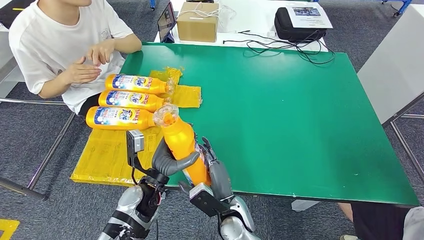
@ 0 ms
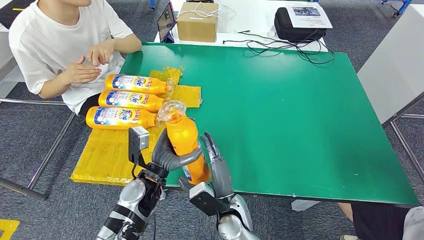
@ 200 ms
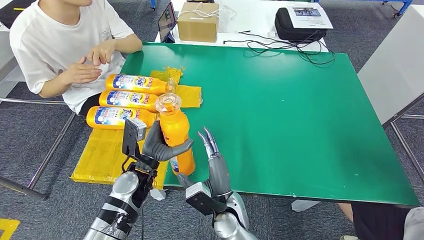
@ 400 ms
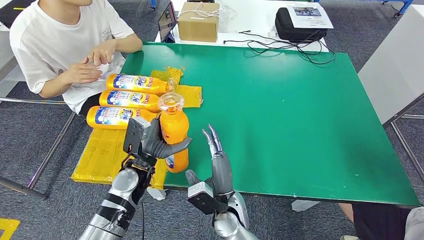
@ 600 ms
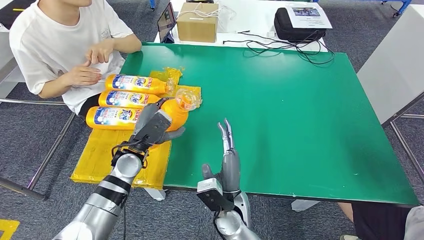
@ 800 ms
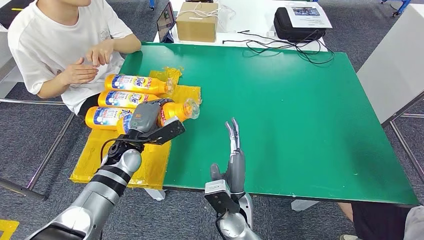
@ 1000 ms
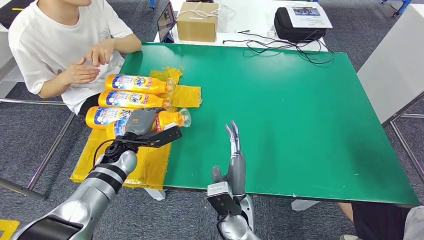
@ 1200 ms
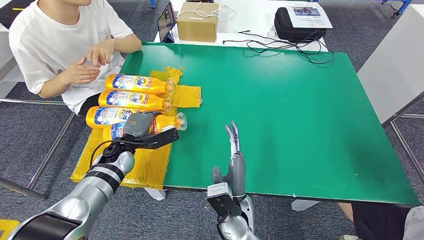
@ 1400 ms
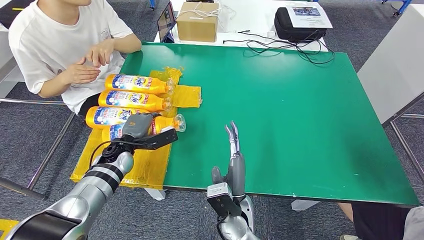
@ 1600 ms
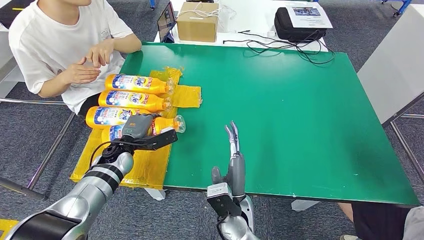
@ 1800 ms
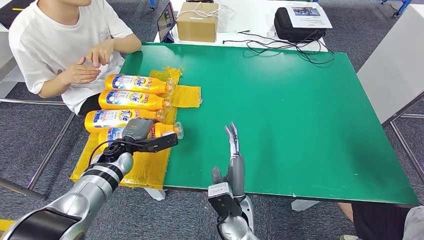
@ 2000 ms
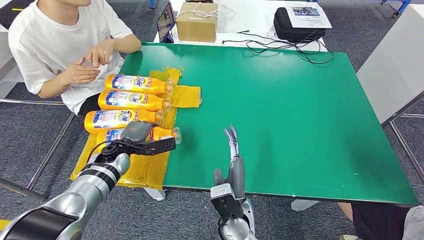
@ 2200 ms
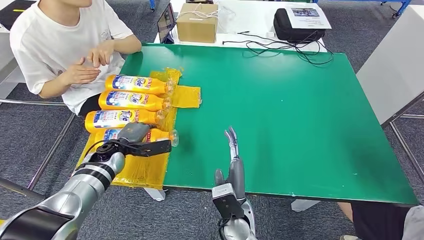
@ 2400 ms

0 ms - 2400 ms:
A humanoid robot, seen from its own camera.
Step, 0 ms - 2200 ms: Flip the bottle to face forward.
0 ms - 1200 ms: The left hand moves forward and to the left, approximately 15 cm.
1200 ms - 2400 ms: The left hand is displaced to the left by roughly 5 cm.
